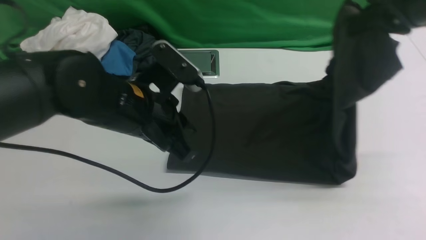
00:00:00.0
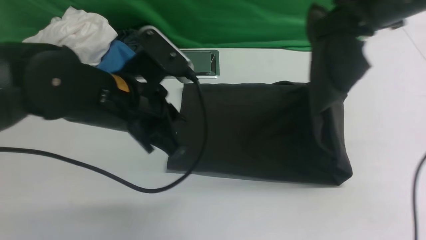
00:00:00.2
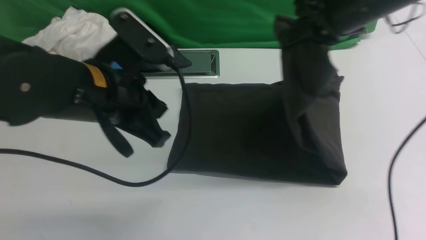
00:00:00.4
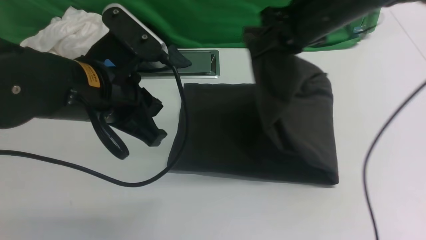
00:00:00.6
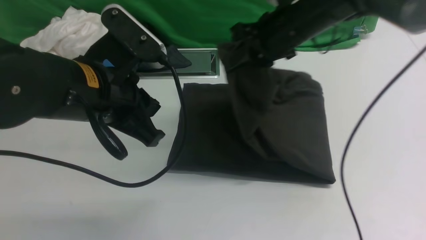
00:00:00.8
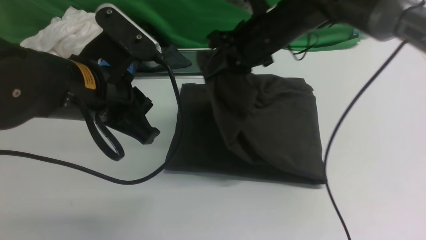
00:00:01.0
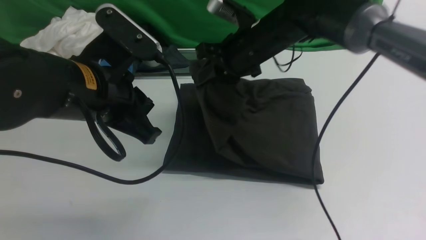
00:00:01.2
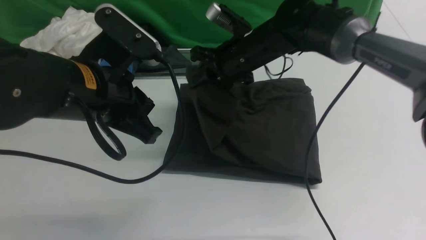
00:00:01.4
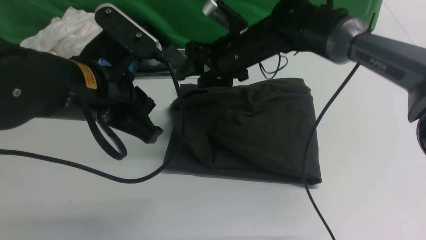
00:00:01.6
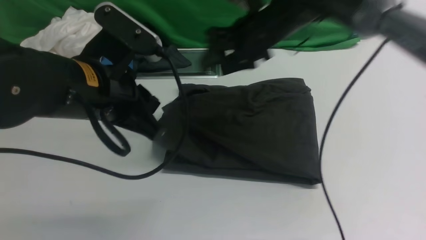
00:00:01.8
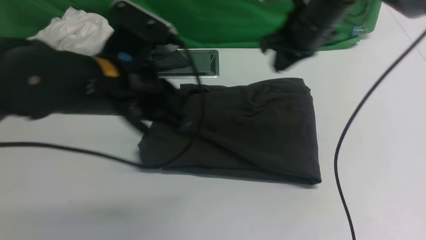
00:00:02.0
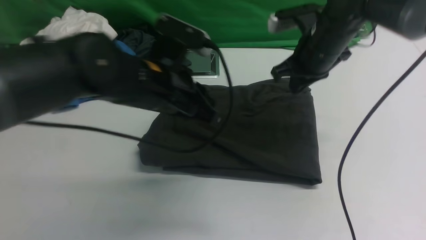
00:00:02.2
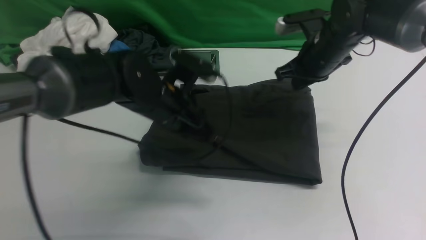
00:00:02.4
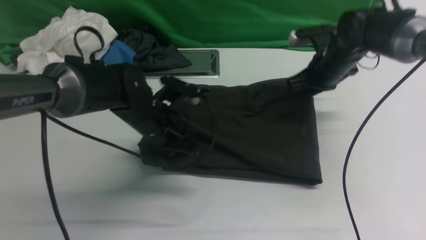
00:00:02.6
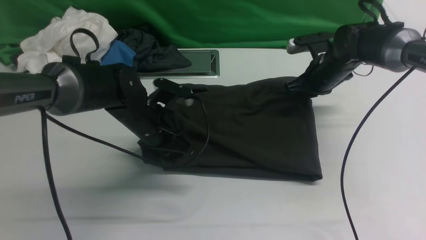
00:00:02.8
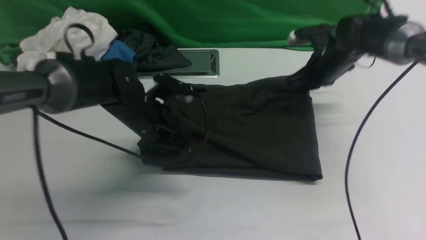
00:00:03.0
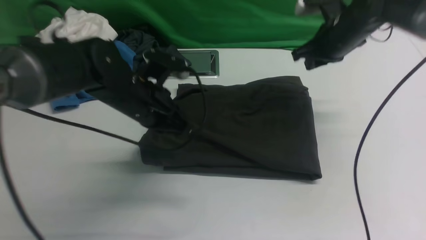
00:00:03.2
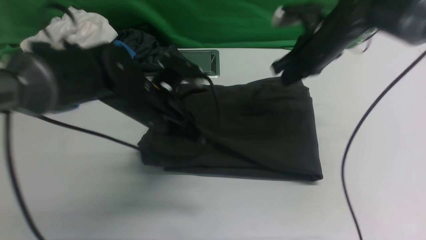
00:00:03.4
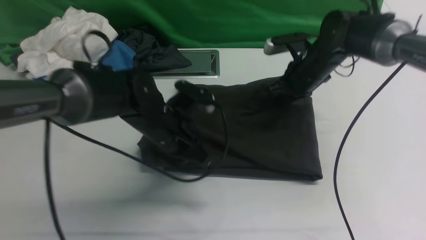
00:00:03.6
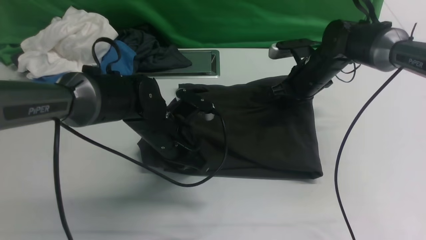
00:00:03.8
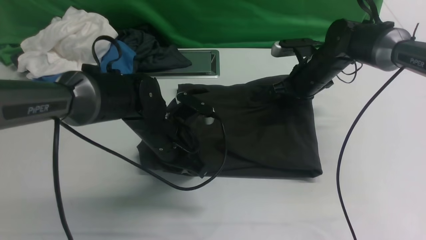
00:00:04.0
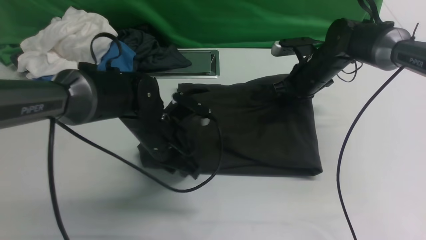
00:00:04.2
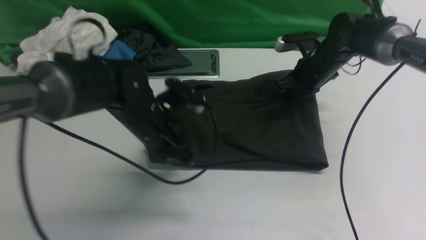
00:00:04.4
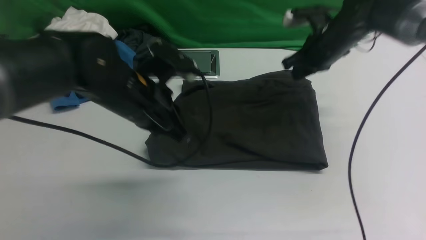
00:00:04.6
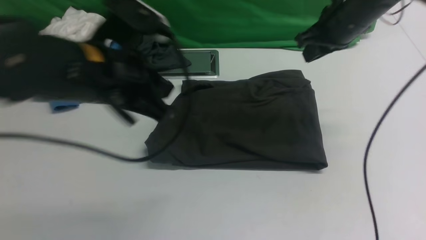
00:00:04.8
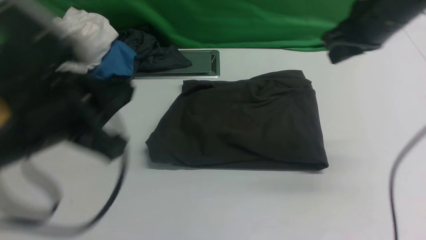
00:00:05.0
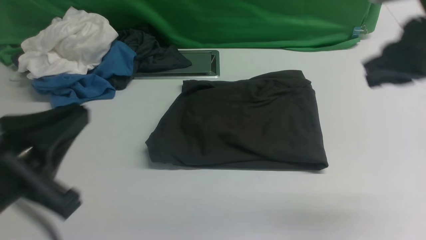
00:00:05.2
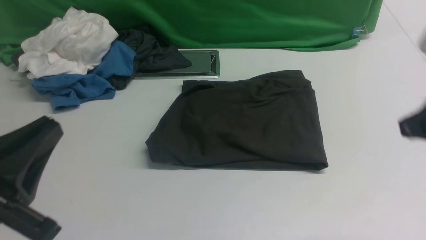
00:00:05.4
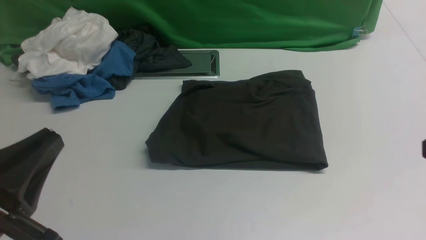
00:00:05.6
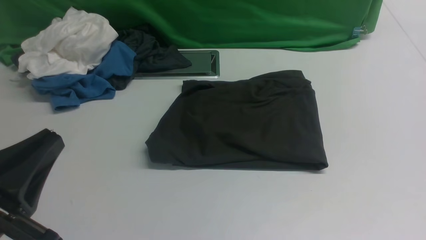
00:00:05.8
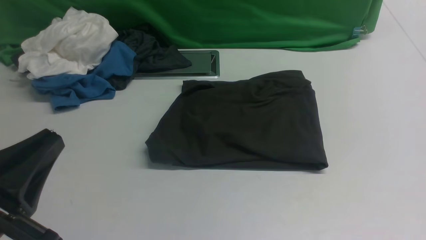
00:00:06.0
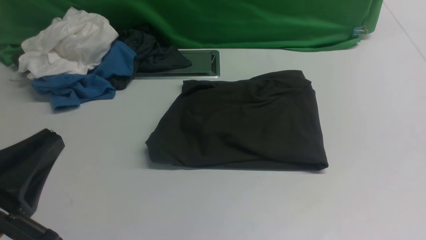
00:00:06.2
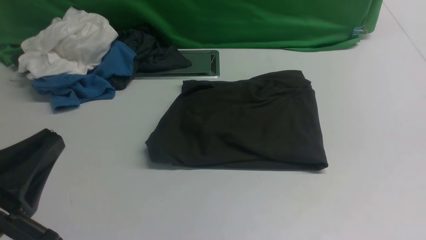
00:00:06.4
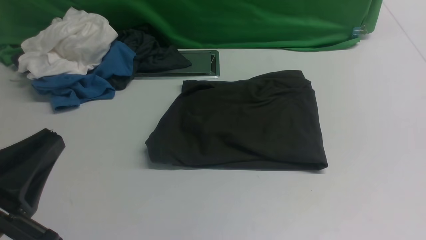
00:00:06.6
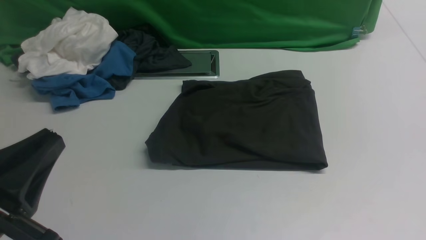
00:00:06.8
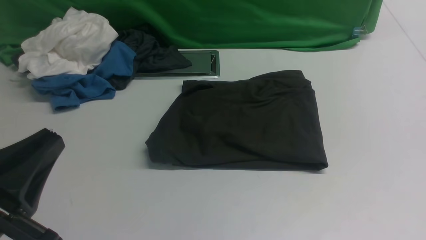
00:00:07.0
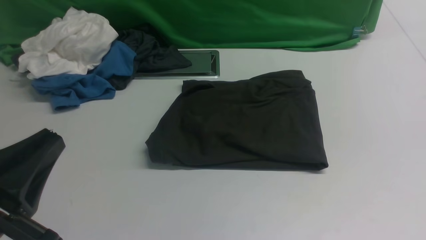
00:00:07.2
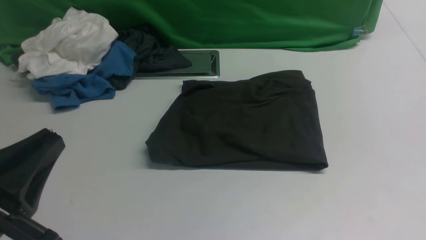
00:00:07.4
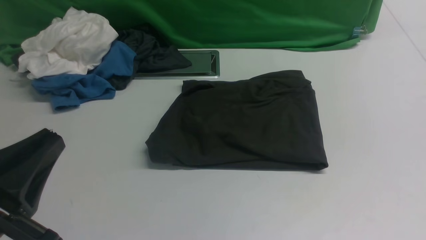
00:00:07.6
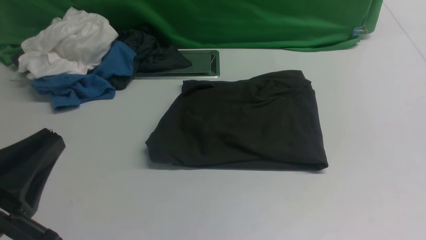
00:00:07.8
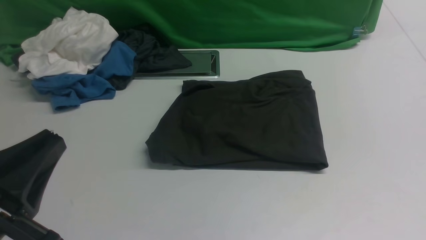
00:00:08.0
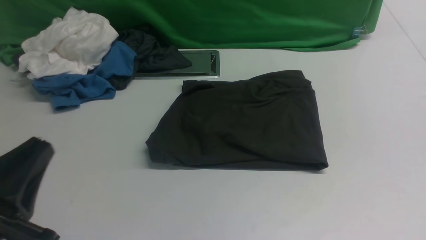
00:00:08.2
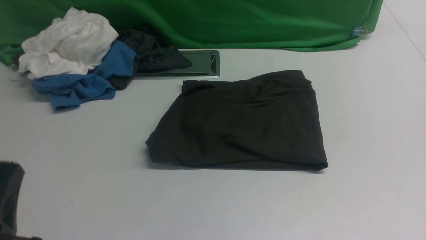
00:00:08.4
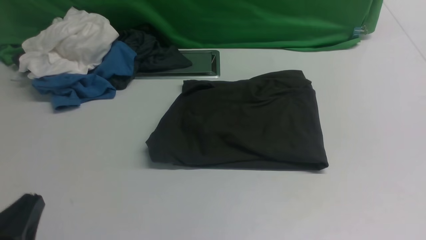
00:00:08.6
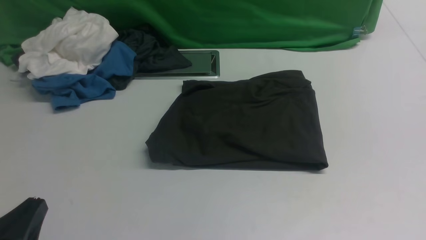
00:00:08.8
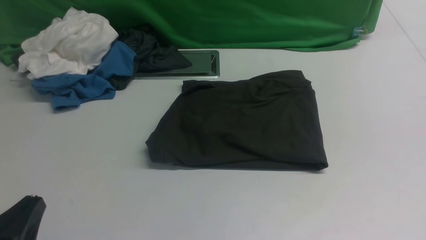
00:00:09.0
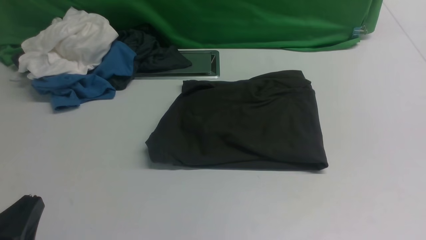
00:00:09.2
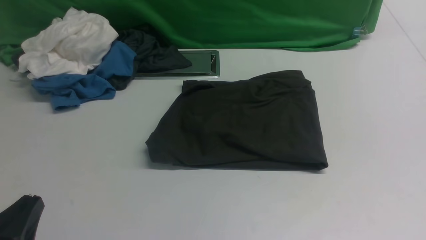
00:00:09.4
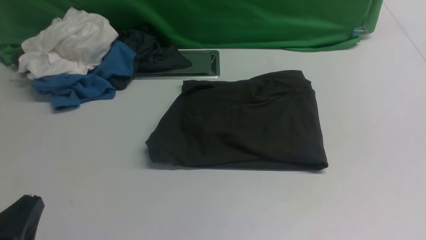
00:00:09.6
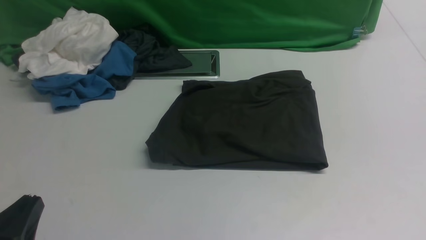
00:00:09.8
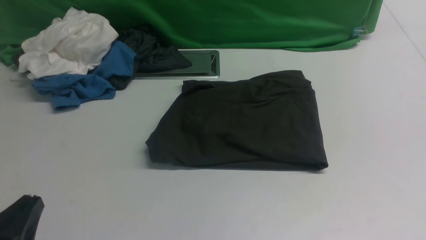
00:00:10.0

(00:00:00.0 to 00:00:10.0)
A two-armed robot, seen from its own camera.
Step, 00:00:00.0 - 00:00:01.6: use the right arm to drag the right edge of the fabric to the left and folds it over the left edge.
00:00:00.0 - 00:00:01.4: The right gripper travels to the left and downward by about 25 cm; the left gripper moves some 5 cm.
00:00:01.4 - 00:00:02.8: The right gripper moves to the right and downward, about 20 cm, and closes its fingers; the left gripper is displaced downward and forward by about 20 cm.
00:00:02.8 - 00:00:04.2: There are only small adjustments of the grippers.
00:00:04.2 - 00:00:05.8: The right gripper travels backward and upward by some 40 cm, while the left gripper moves backward, to the left and upward, about 30 cm.
00:00:07.2 - 00:00:08.6: The left gripper shifts about 10 cm downward.
00:00:08.6 - 00:00:10.0: Both grippers stay about where they are.
